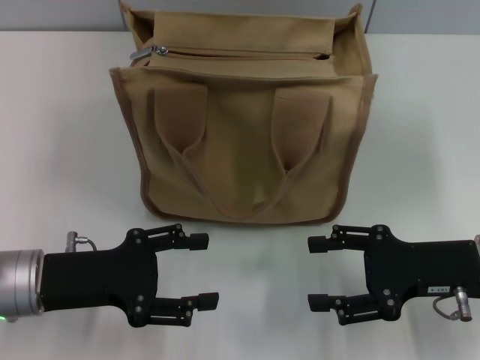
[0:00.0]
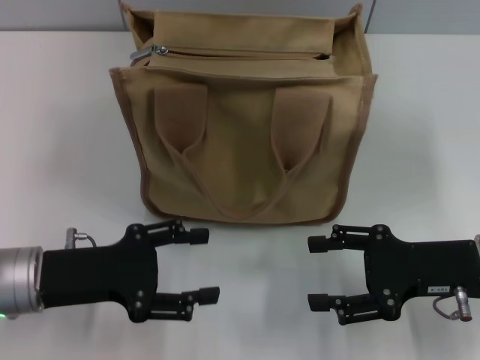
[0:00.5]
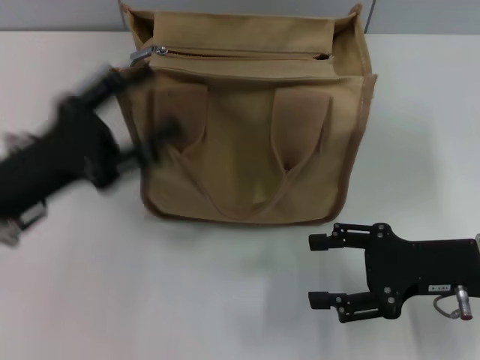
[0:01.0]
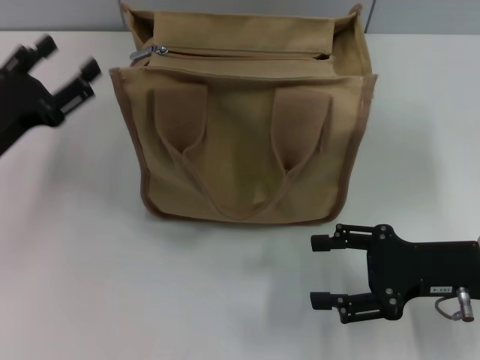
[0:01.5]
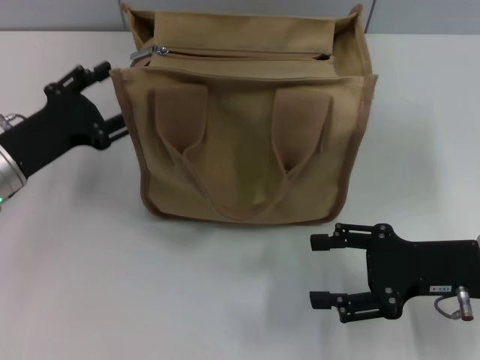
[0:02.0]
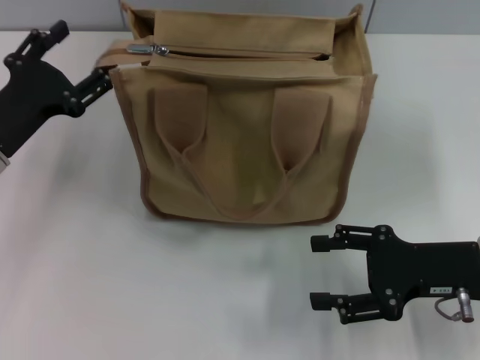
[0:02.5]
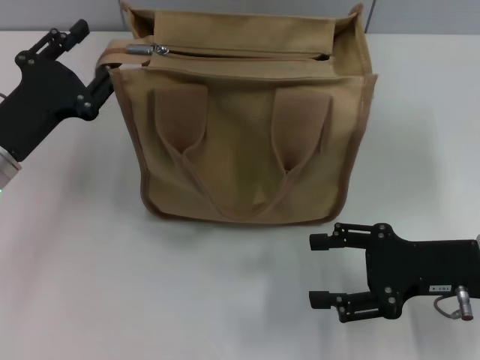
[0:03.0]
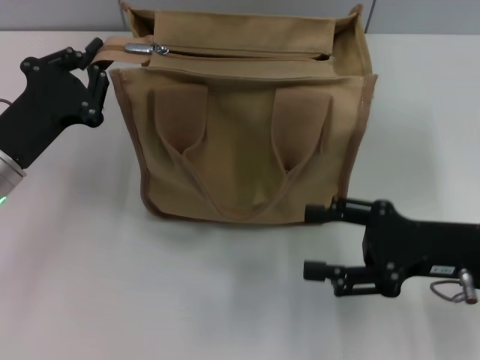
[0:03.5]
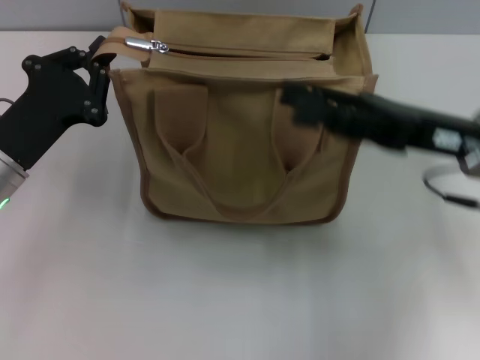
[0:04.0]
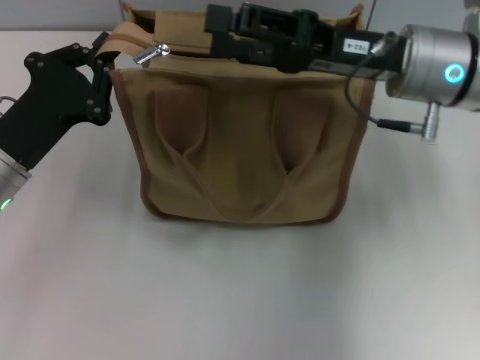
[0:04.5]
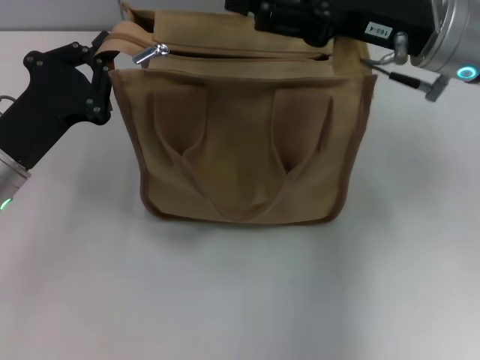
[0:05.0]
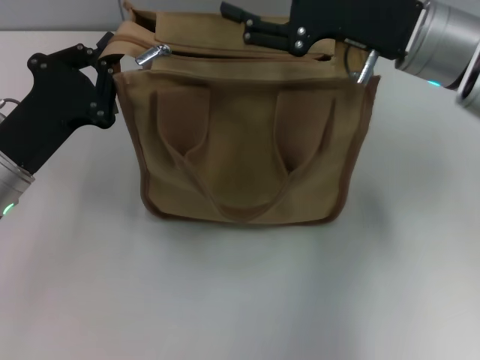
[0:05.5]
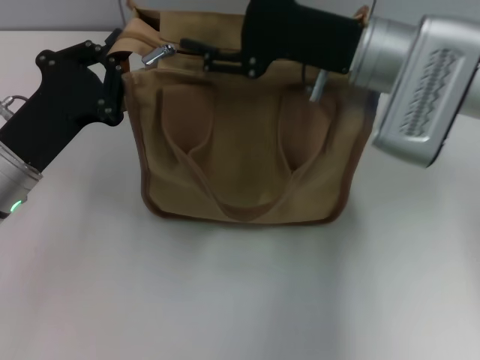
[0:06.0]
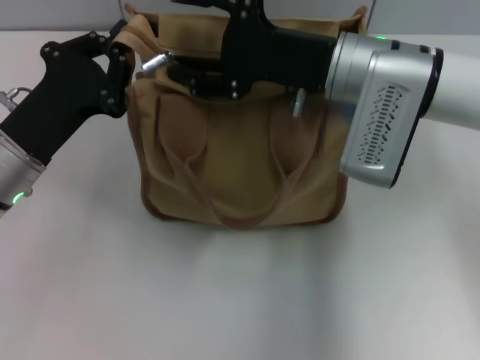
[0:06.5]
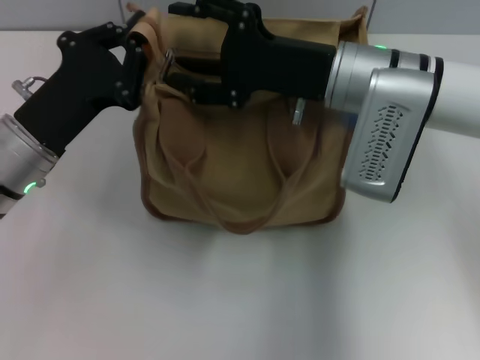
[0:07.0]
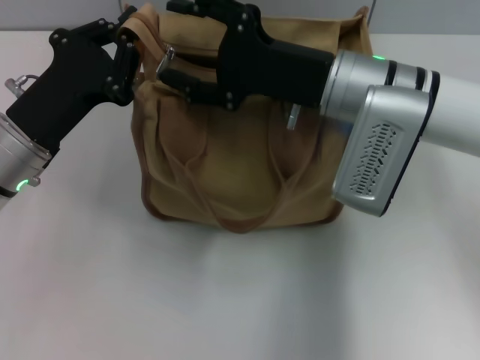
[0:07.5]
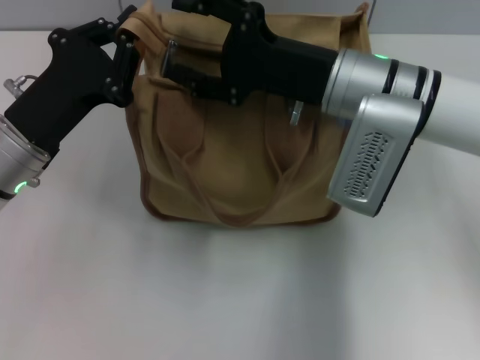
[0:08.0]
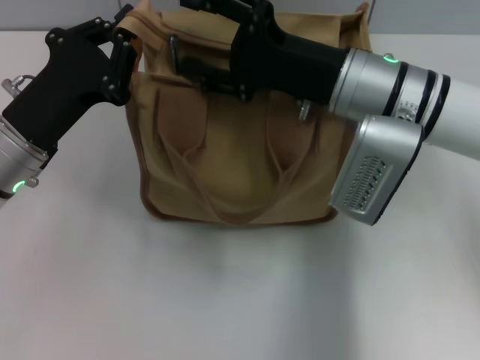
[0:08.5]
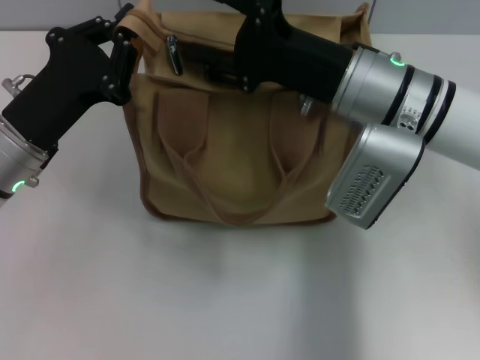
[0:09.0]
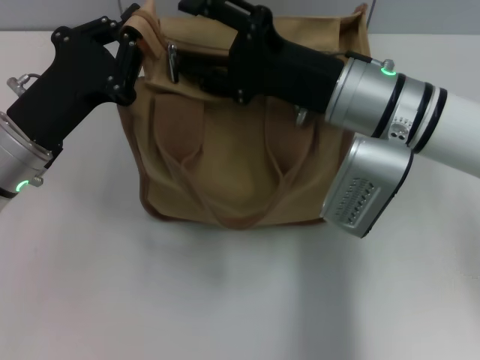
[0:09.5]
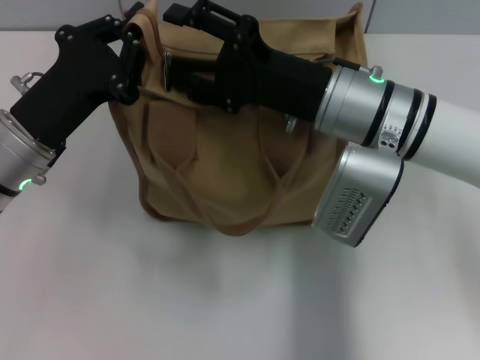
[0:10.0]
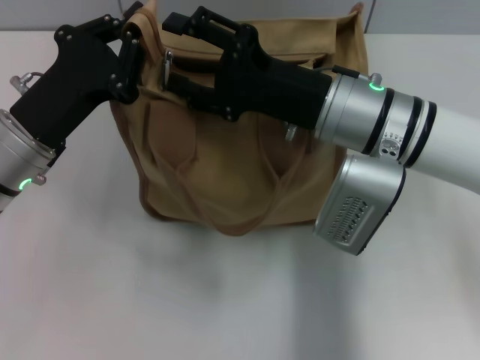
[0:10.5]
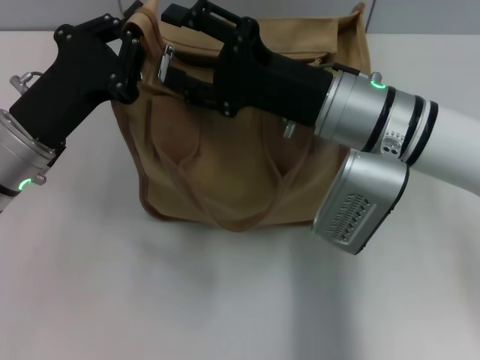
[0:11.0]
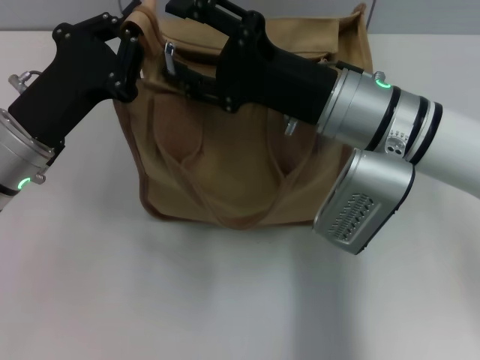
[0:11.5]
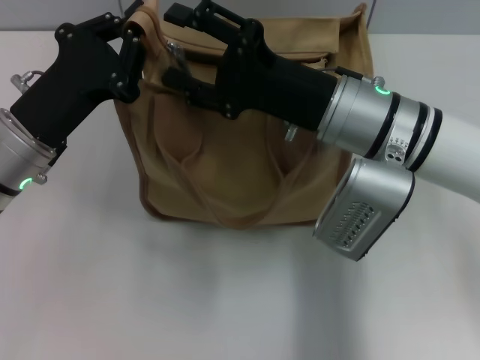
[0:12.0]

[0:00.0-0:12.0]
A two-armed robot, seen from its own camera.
0:00.0 to 0:02.0: The left gripper goes roughly 5 cm forward.
0:02.0 to 0:04.0: The left gripper closes up. The right gripper heads upward and forward, covering roughly 10 cm.
0:04.0 to 0:06.0: The right gripper is displaced to the left and forward by roughly 10 cm.
0:08.0 to 0:10.0: The grippers stay close to where they were, moving slightly.
0:10.0 to 0:12.0: Both grippers stay put.

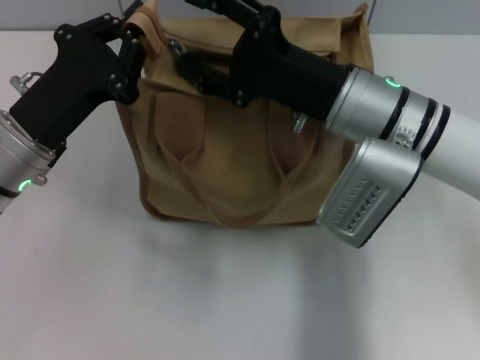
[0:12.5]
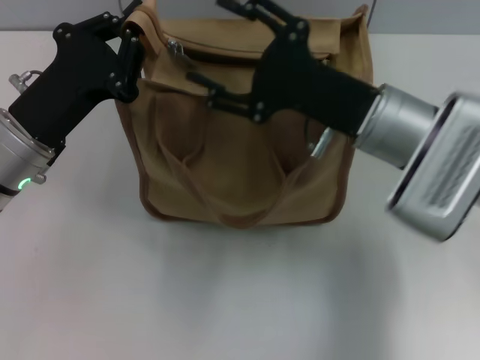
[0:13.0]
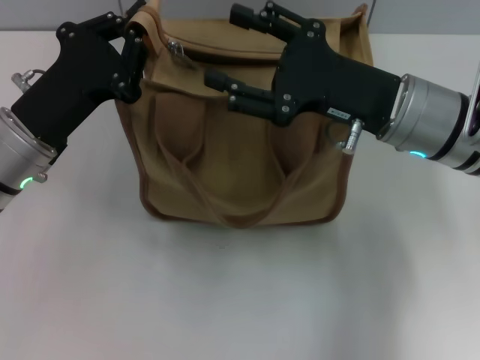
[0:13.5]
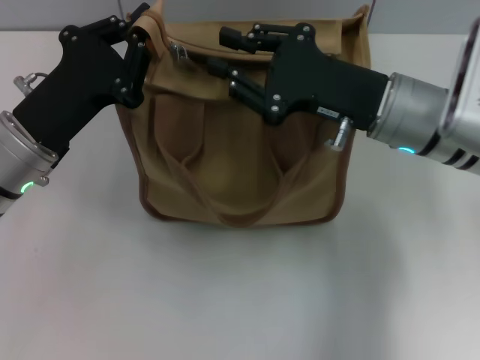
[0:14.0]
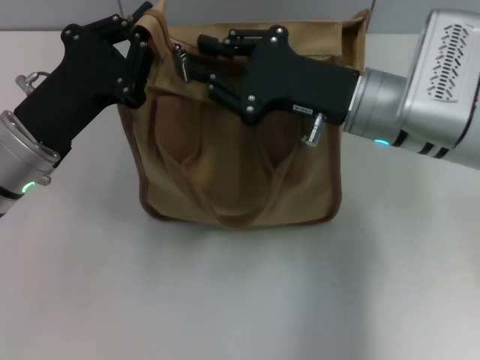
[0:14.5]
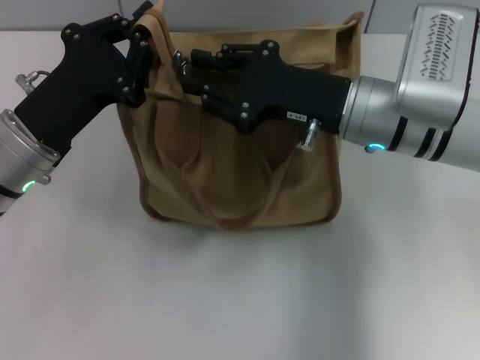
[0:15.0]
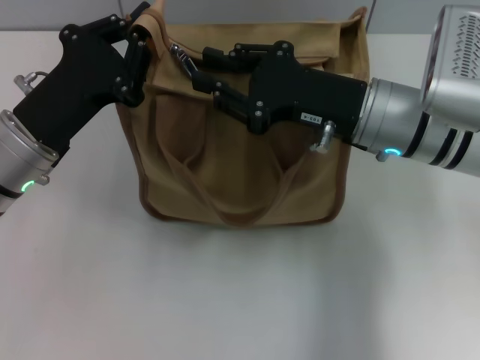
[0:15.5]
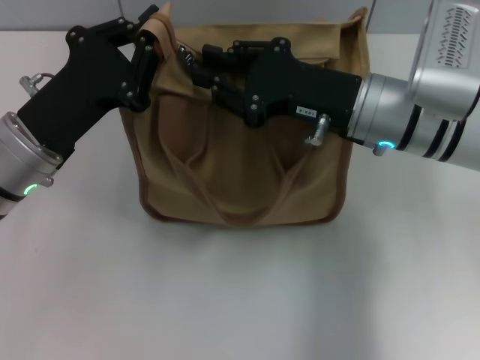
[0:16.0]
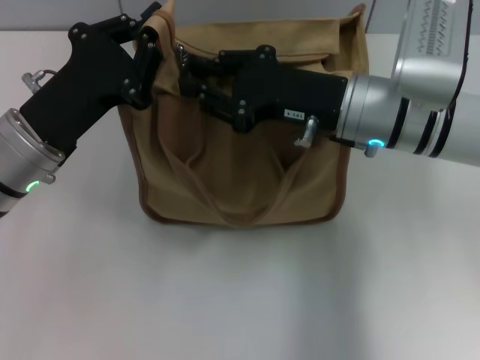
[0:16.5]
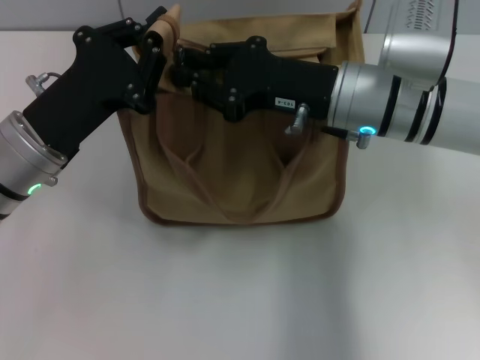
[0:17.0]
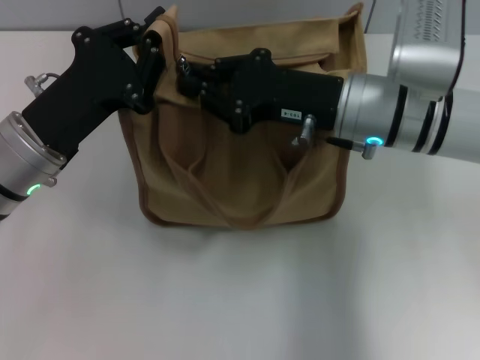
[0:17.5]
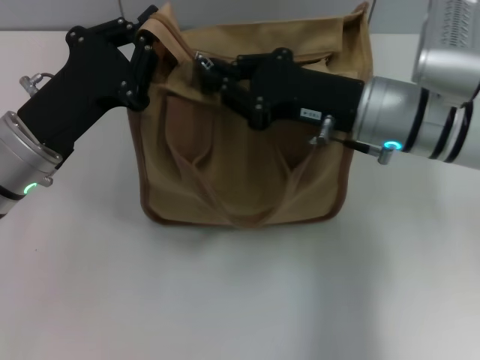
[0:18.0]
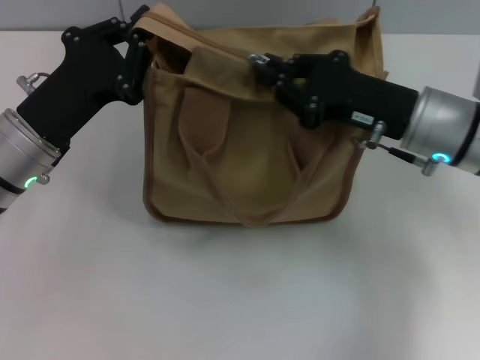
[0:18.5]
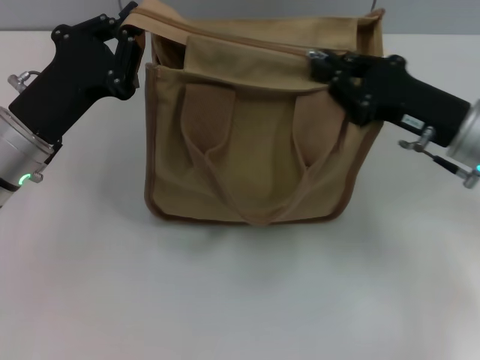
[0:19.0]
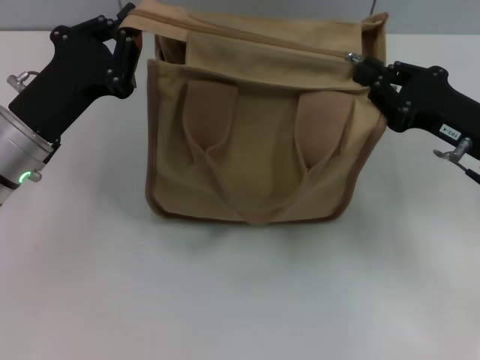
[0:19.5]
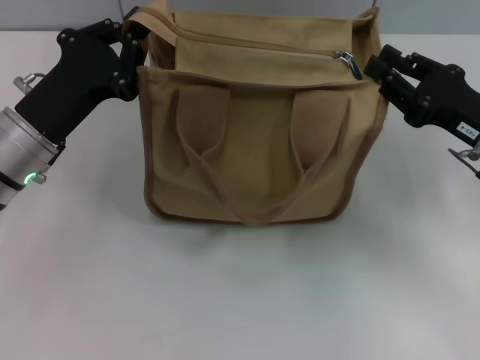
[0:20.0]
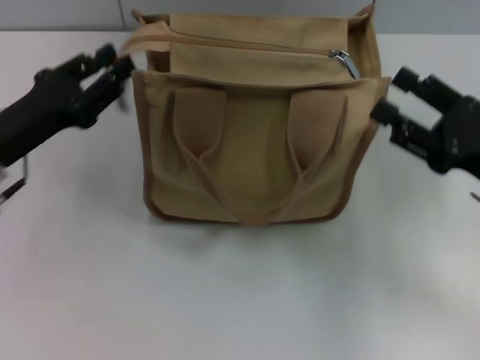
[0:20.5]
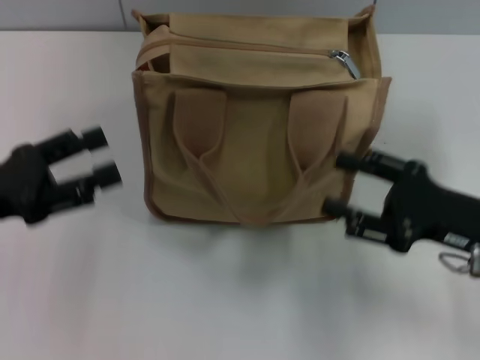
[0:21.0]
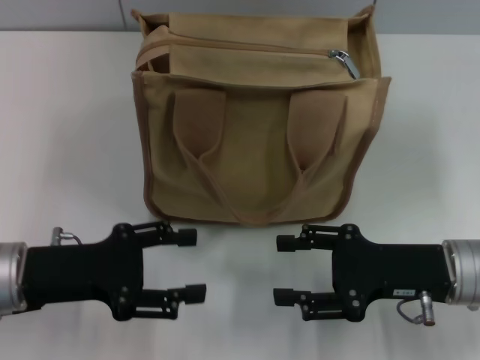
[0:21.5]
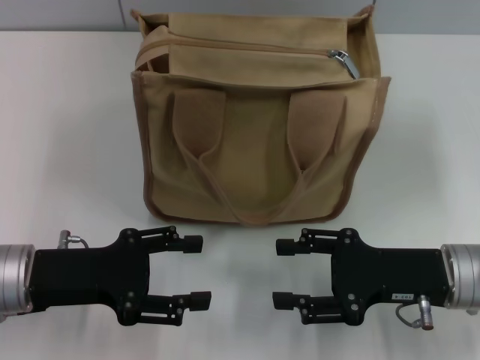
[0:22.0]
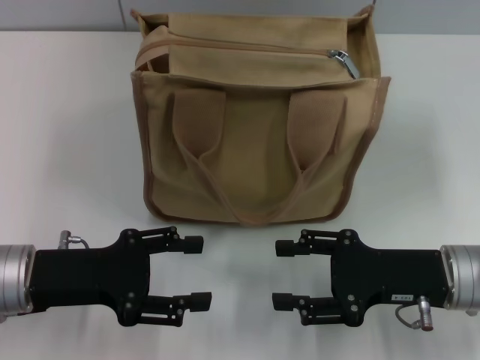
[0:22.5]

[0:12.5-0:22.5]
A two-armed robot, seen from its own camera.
Step, 0:12.5 to 0:19.5: Pull up the zipper with your right hand.
Step, 0:20.0 to 0:20.5: Grab the zipper with your left hand.
0:12.5 to 0:14.5: The right gripper closes its fingers.
0:14.5 to 0:16.5: The grippers stay close to where they were, moving slightly.
0:16.5 to 0:18.5: The right gripper goes approximately 5 cm to the right.
0:18.5 to 0:20.5: The left gripper shifts approximately 5 cm to the left. Meanwhile the right gripper moves to the right and backward, approximately 10 cm, and opens its fingers.
0:20.5 to 0:22.5: The right gripper heads to the left, covering some 5 cm; the left gripper heads backward, covering roughly 5 cm, and opens.

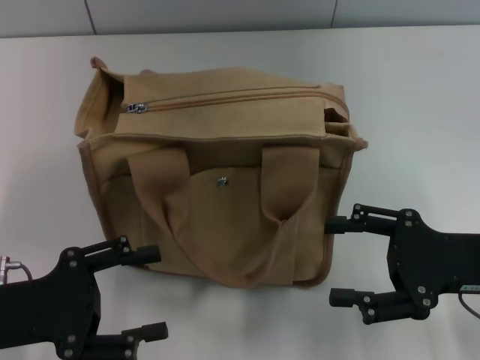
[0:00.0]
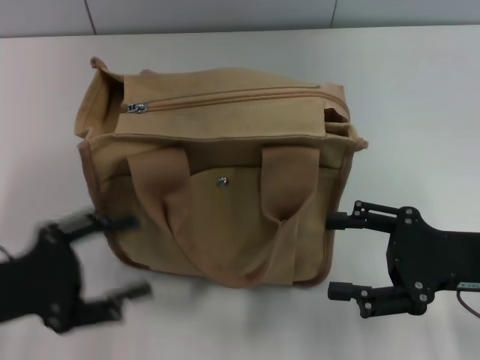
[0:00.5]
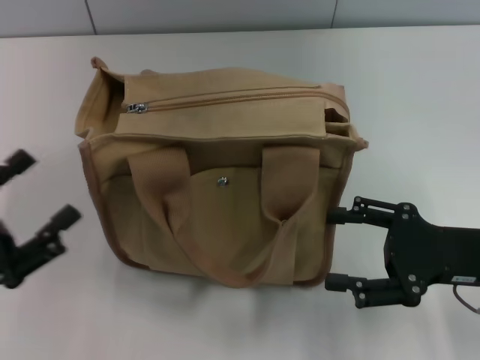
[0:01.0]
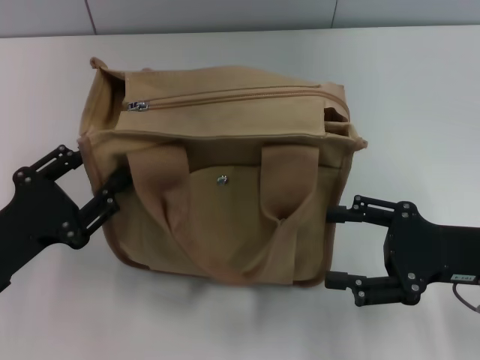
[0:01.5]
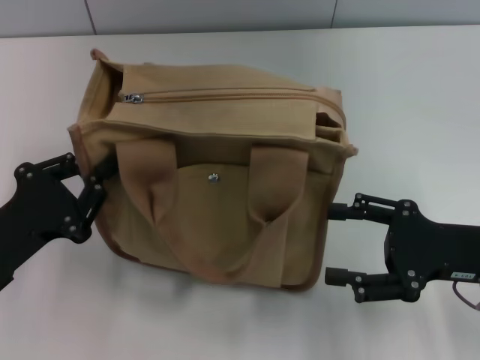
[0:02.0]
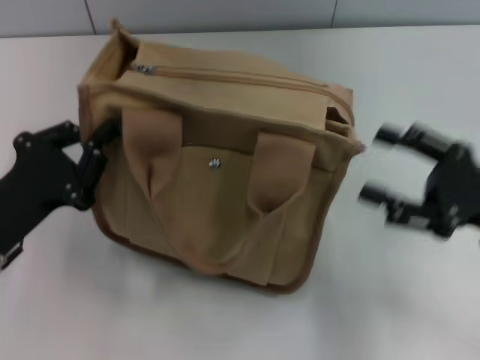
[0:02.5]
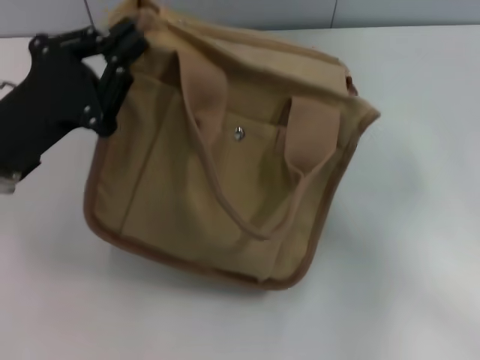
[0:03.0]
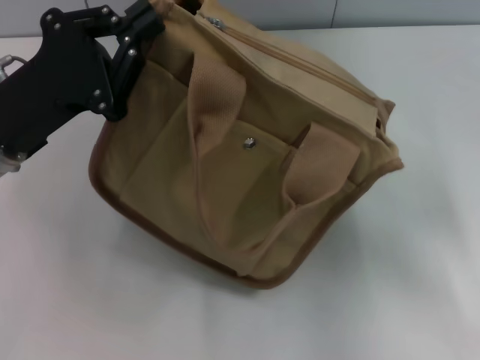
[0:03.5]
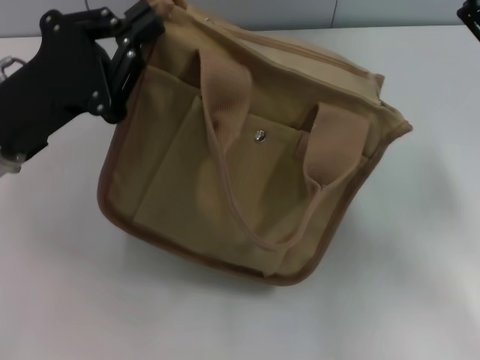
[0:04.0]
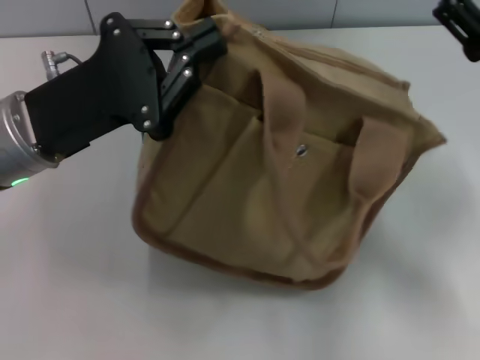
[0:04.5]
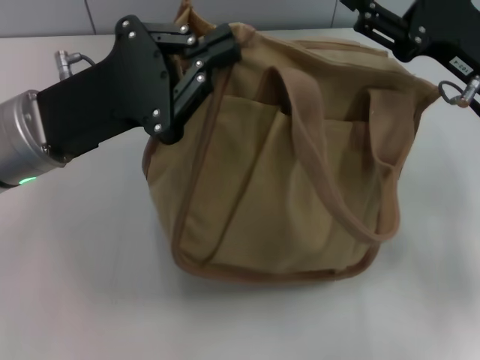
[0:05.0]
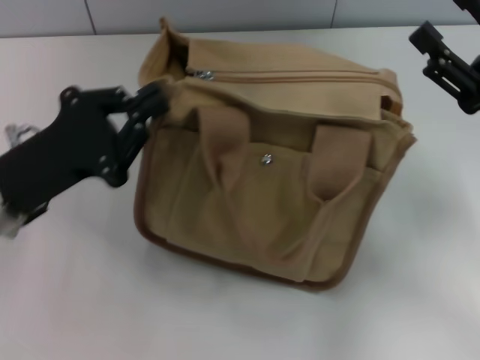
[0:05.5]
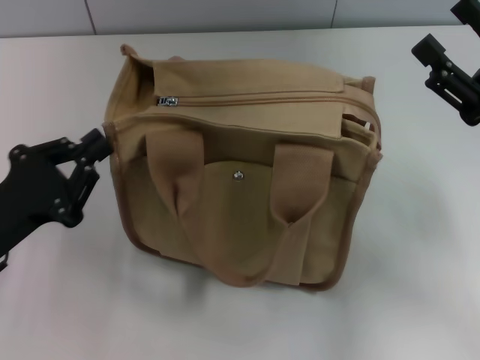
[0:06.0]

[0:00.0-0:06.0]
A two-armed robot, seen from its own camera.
0:00.0 to 0:02.0: The left gripper closes up.
0:02.0 to 0:04.0: The left gripper is displaced forward and upward by some 10 cm. The right gripper moves some 5 cm.
0:04.0 to 0:06.0: The left gripper goes some 10 cm backward and downward.
